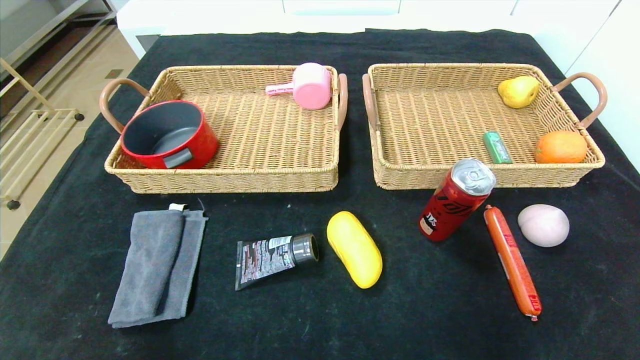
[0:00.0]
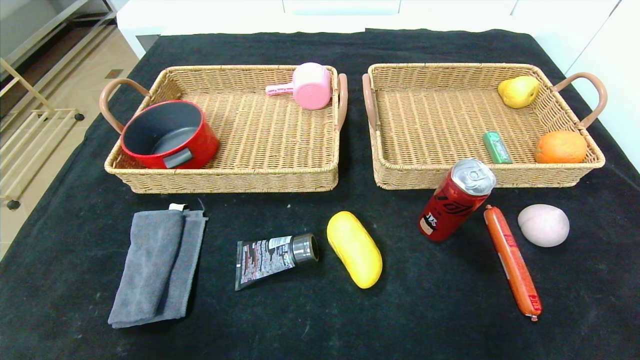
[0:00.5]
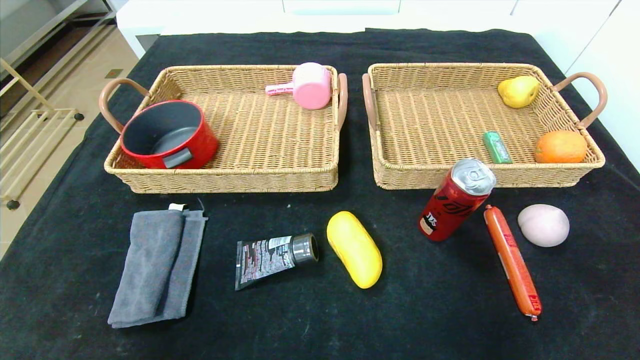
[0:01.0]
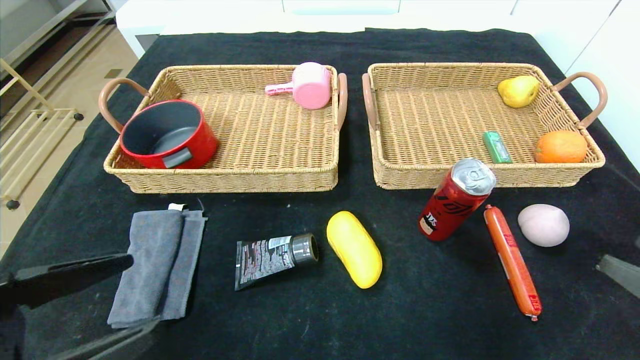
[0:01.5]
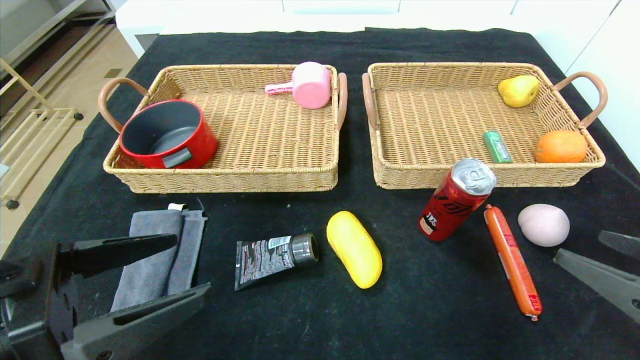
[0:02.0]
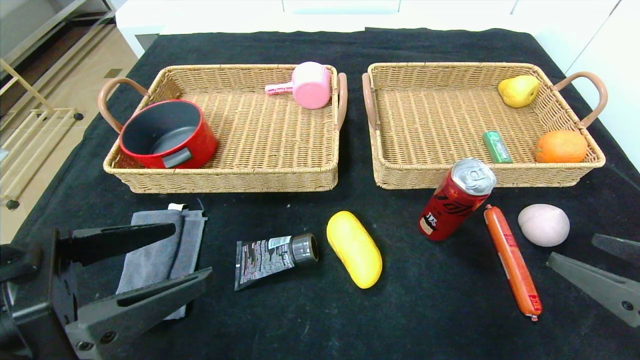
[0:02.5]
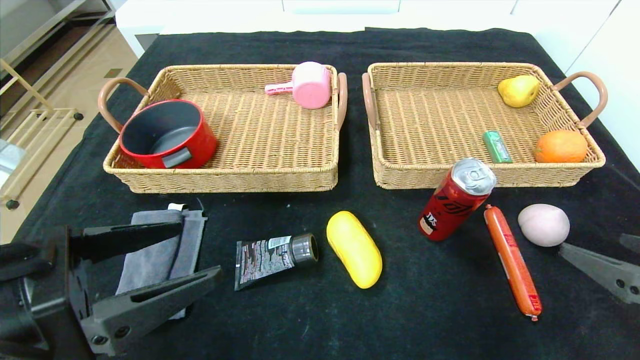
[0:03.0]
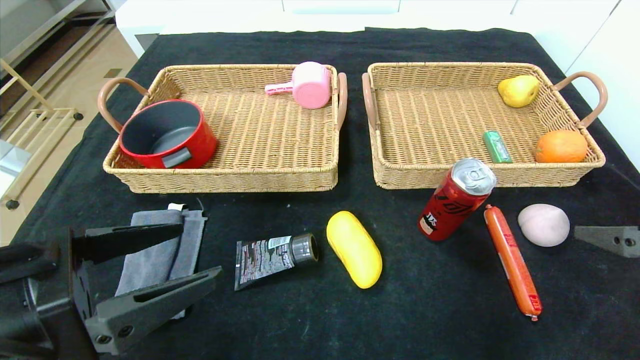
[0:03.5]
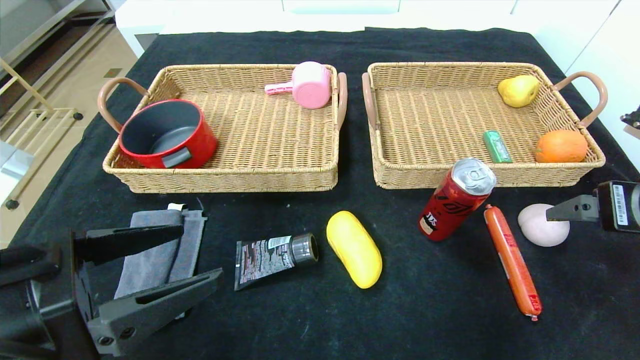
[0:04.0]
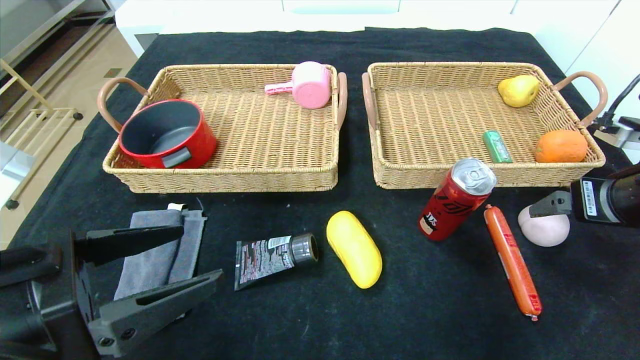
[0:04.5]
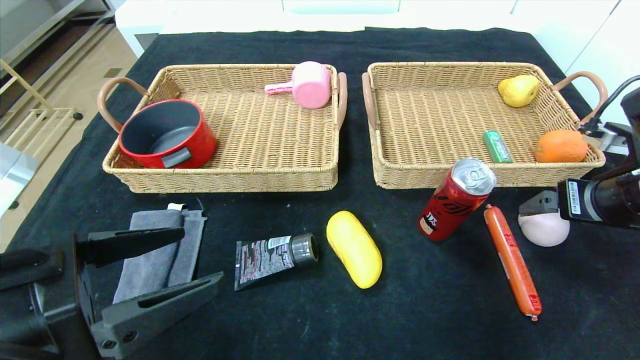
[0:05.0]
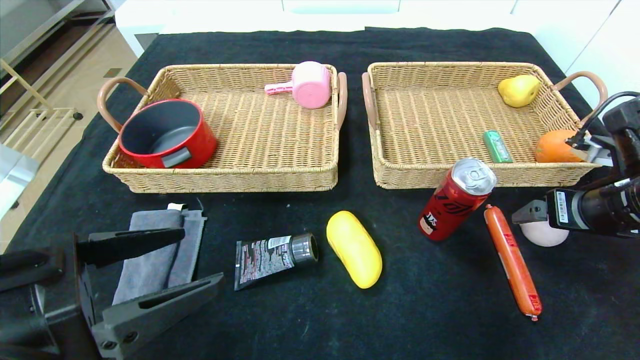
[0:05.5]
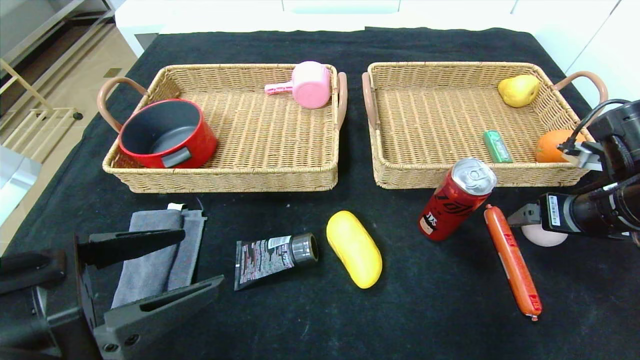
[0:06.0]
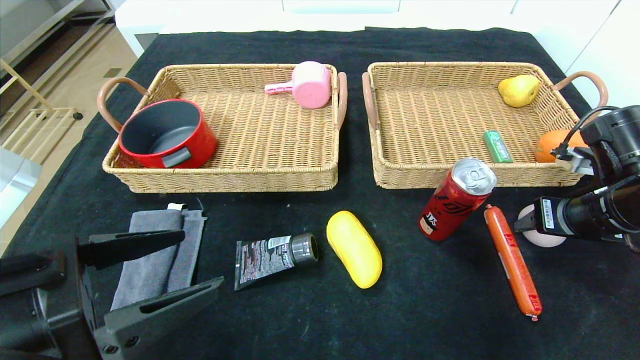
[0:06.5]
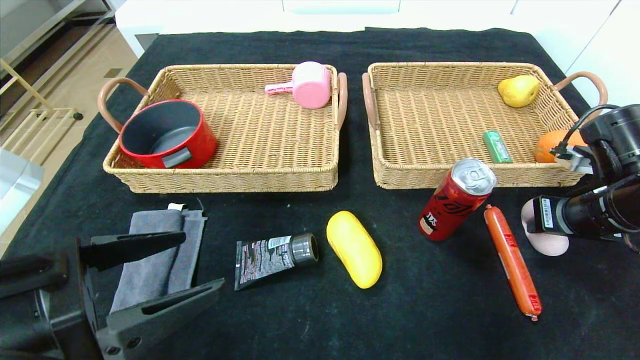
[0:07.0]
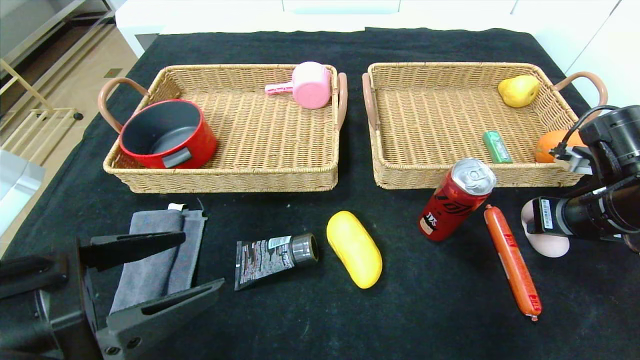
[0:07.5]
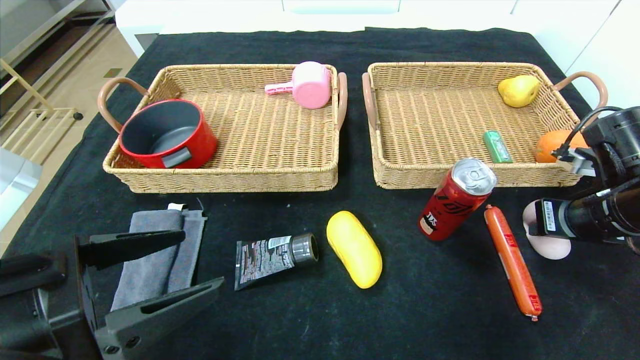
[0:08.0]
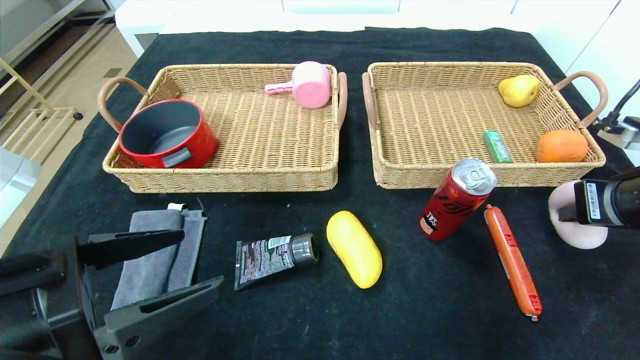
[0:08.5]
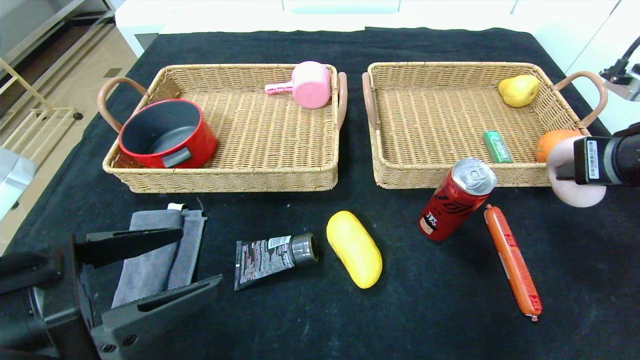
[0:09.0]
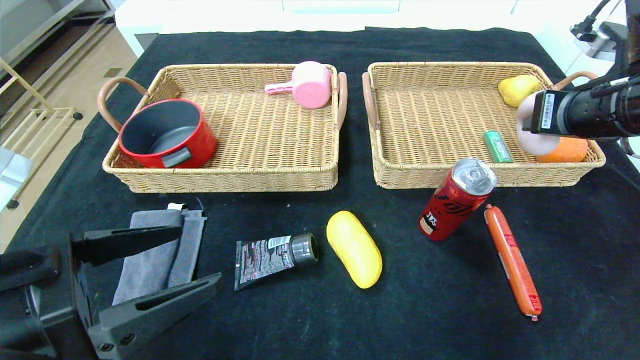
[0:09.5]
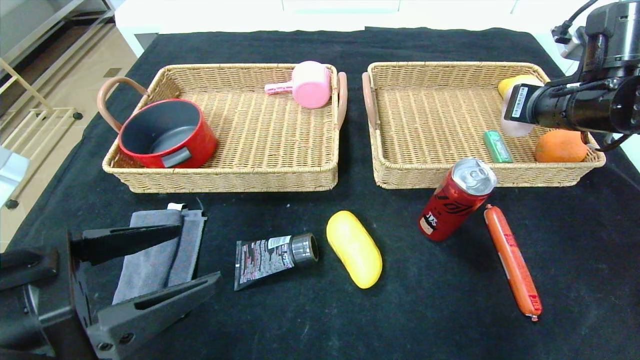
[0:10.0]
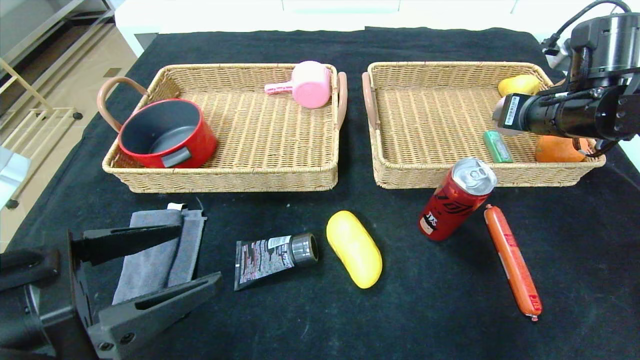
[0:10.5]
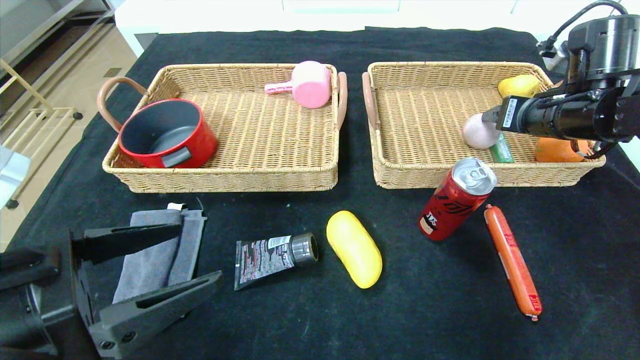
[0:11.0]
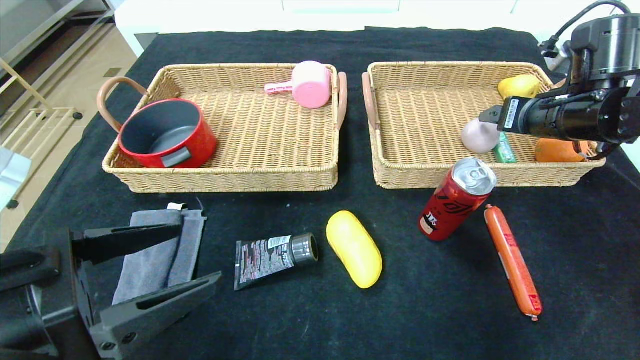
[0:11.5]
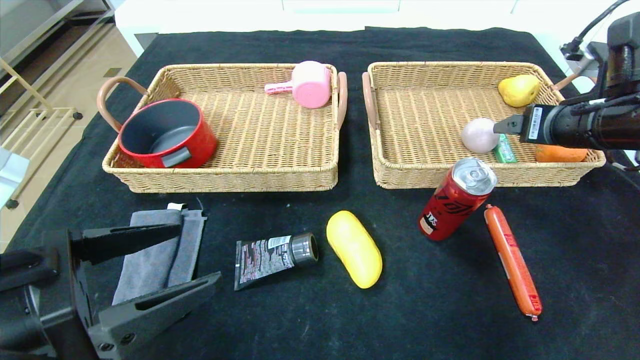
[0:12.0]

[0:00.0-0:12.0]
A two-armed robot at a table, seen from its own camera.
Step, 0:00.0 to 0:10.5: Grasp the peach and put it in the right basket.
0:00.0 to 0:02.0: The grippers both shift upward and forward by roughly 20 cm.
0:02.0 to 0:04.0: The right gripper shifts roughly 10 cm forward and upward.
0:04.0 to 0:06.0: The right gripper heads forward, covering roughly 5 cm.
0:06.0 to 0:08.0: The right gripper closes.
0:08.0 to 0:10.0: The right gripper shifts about 10 cm upward and forward.
0:10.0 to 0:12.0: The right gripper opens.

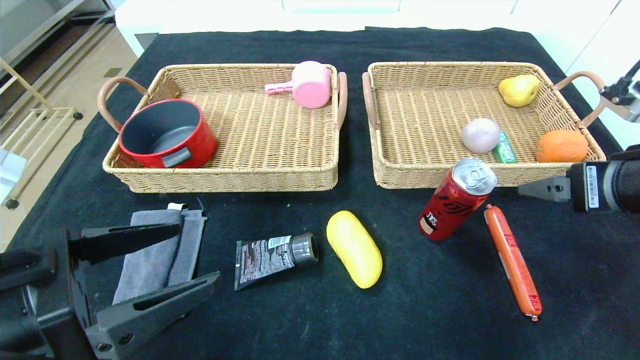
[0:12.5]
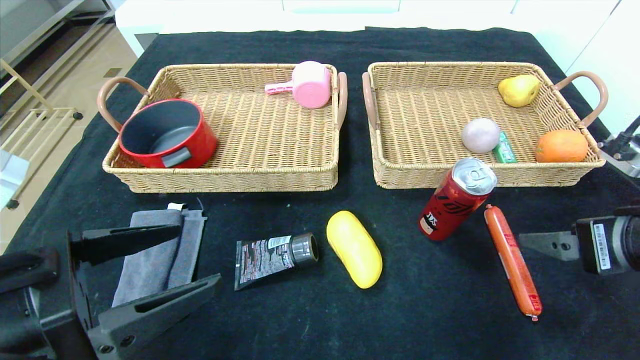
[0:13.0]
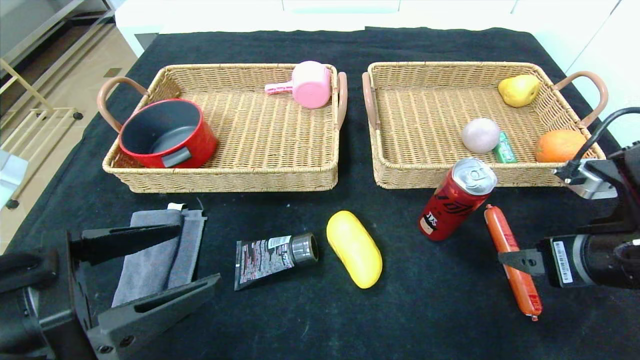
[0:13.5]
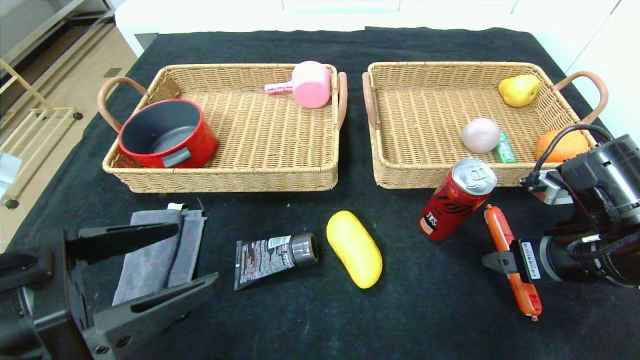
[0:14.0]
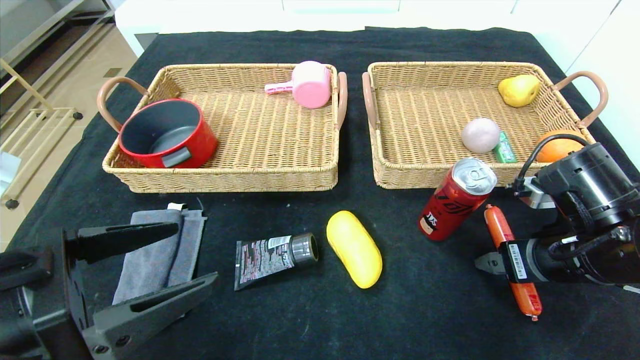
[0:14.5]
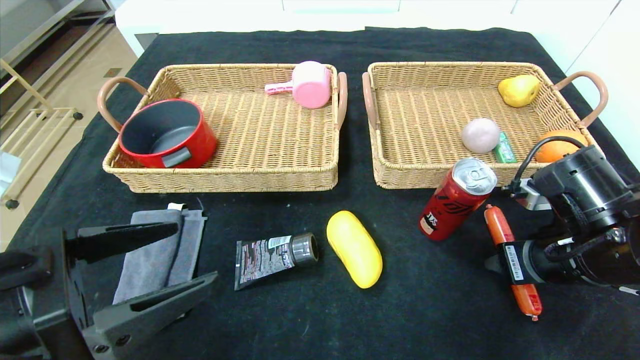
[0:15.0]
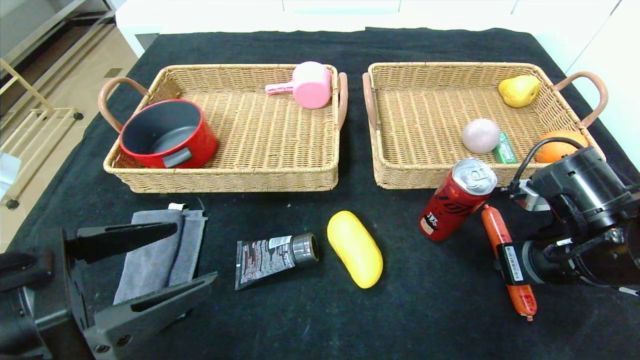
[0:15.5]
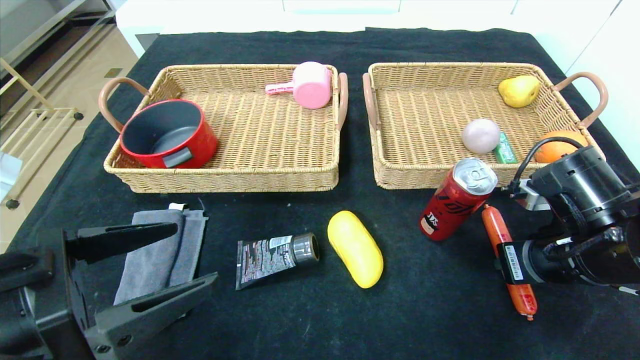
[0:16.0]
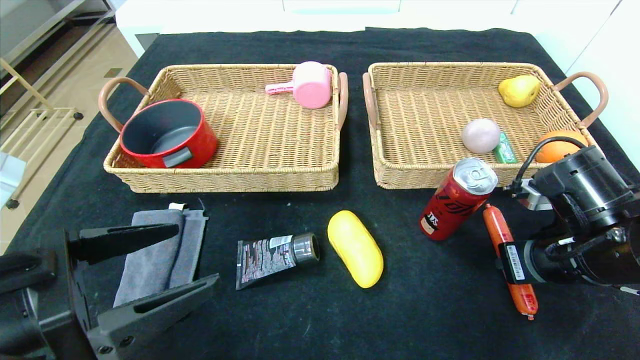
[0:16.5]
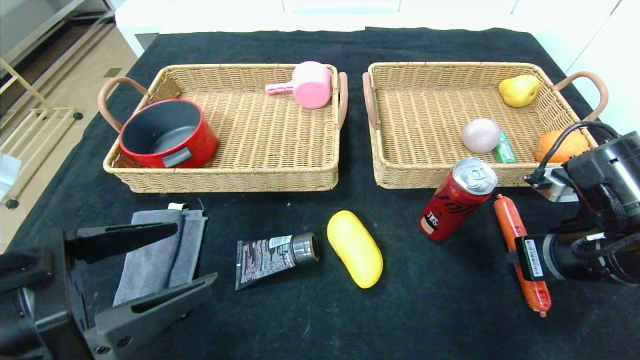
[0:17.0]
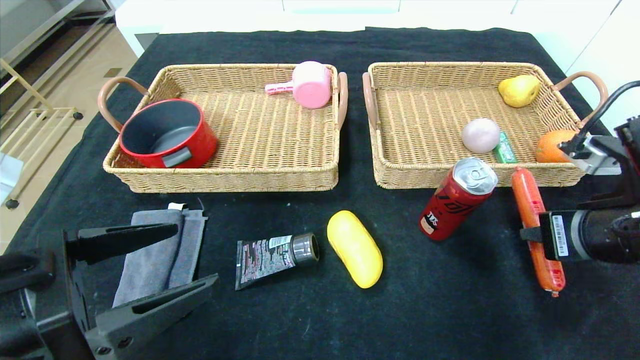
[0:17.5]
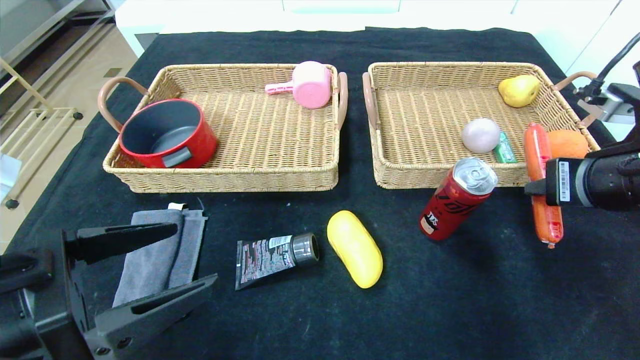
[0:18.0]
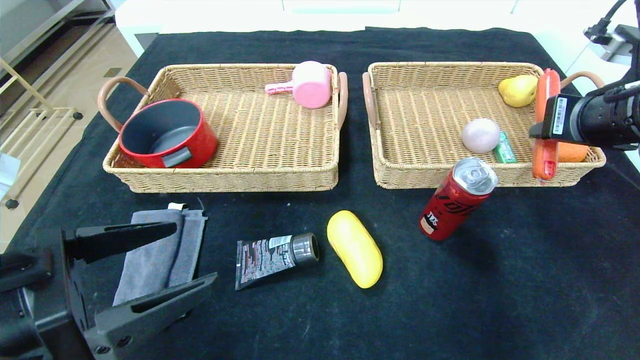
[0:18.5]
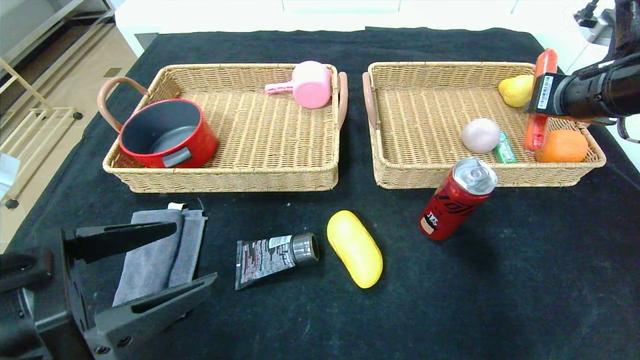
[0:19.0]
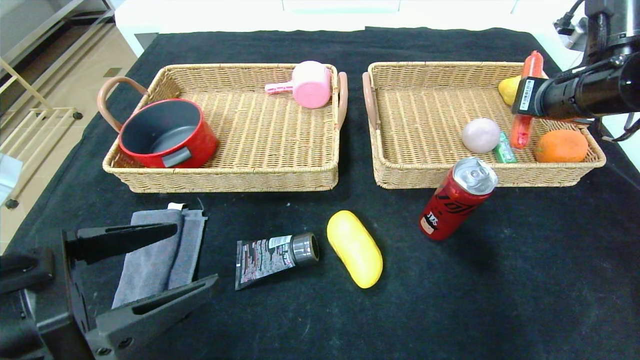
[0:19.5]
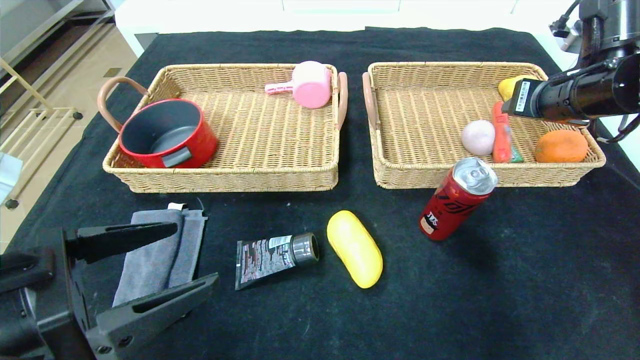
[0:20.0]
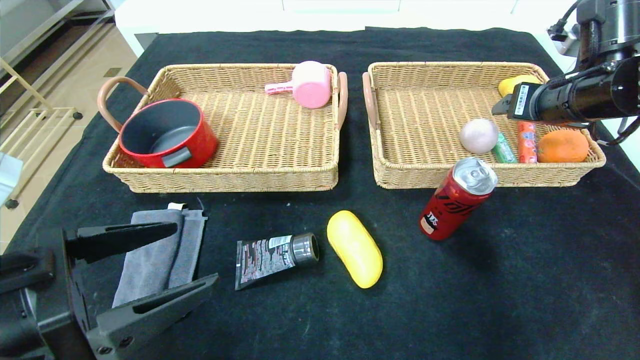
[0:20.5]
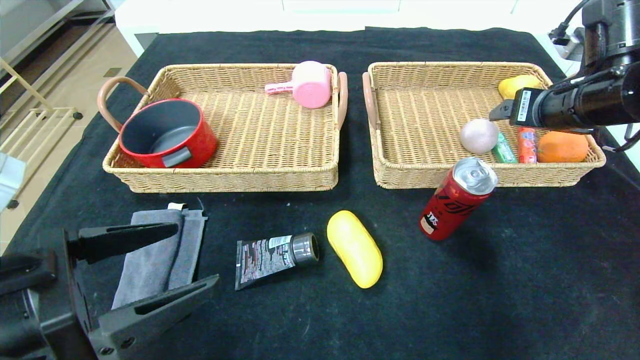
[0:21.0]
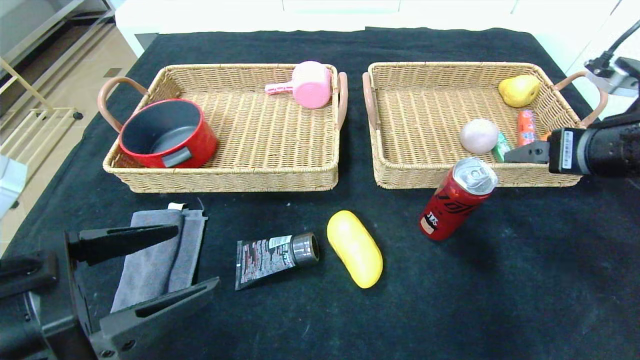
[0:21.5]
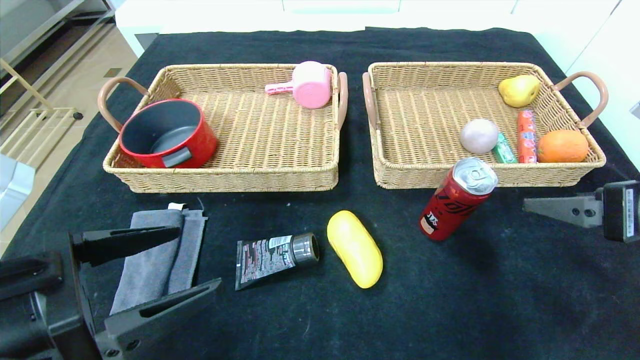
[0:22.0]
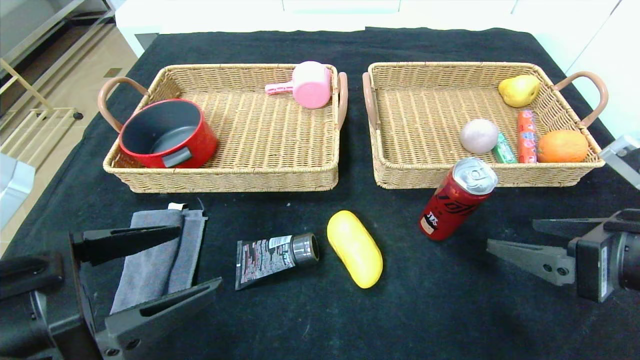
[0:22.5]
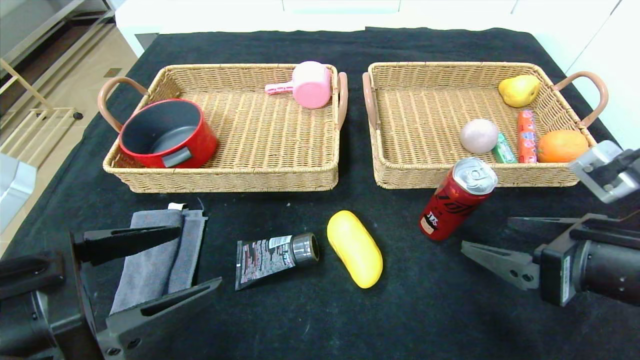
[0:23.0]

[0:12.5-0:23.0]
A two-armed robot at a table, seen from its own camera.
Step, 0:12.5 to 0:20.0: Grasp the sausage and put it in the right basket.
0:12.5 to 0:14.5: The right gripper travels downward by about 10 cm.
0:14.5 to 0:16.5: The right gripper closes its fingers.
0:16.5 to 0:19.0: The right gripper travels upward and forward by about 15 cm.
0:19.0 to 0:21.0: The right gripper opens.
0:21.0 to 0:23.0: The right gripper travels backward and downward by some 20 cm.
